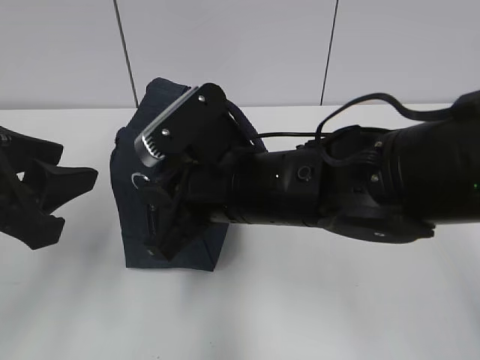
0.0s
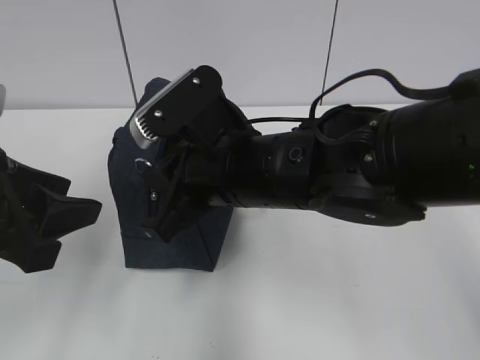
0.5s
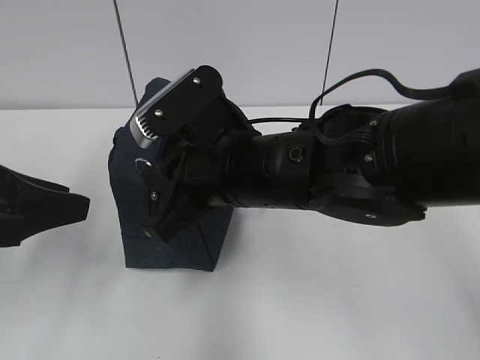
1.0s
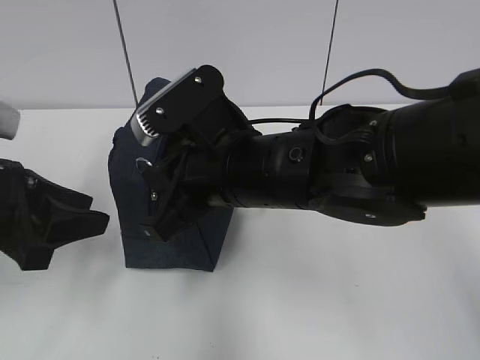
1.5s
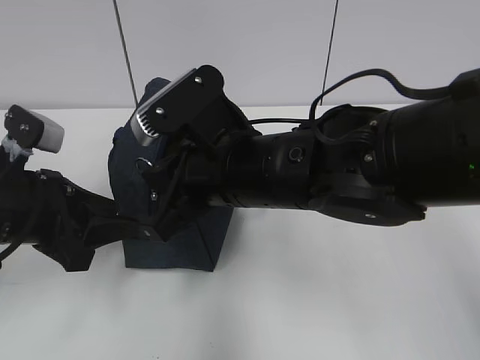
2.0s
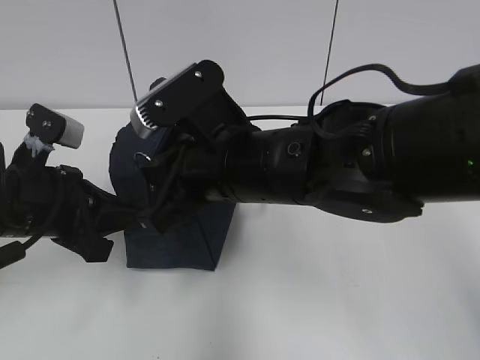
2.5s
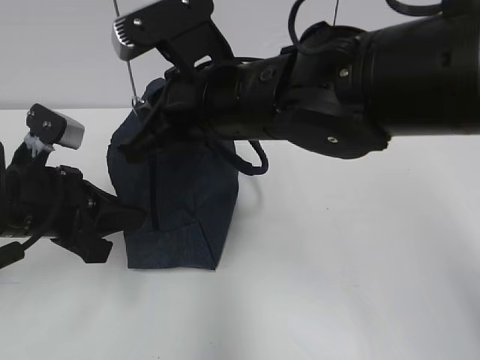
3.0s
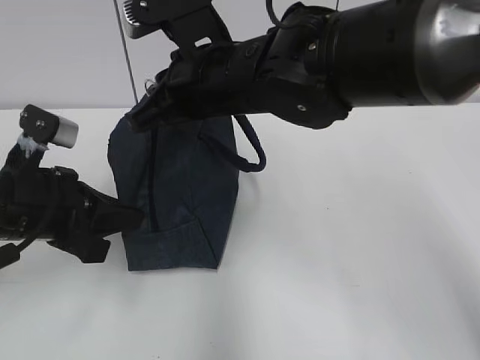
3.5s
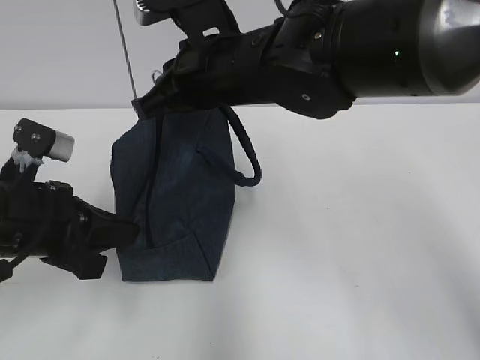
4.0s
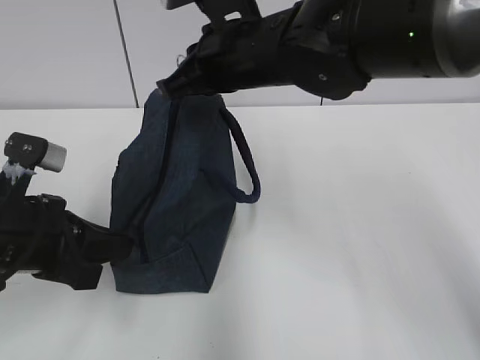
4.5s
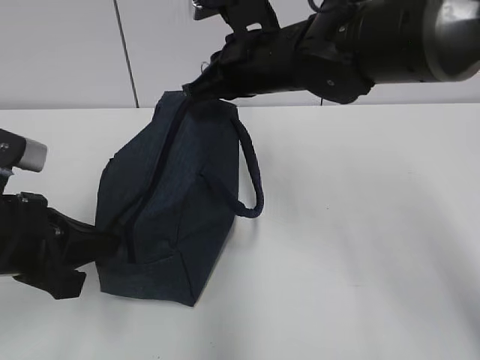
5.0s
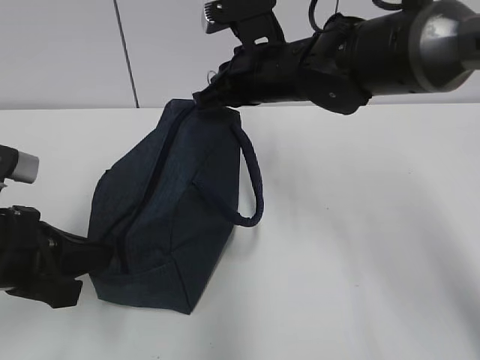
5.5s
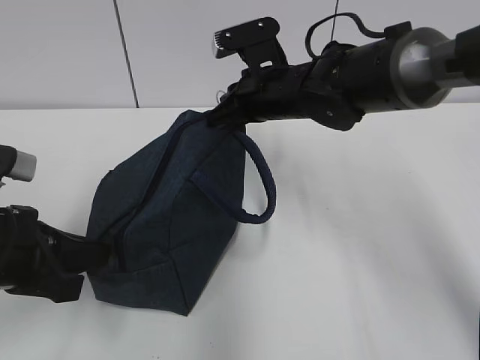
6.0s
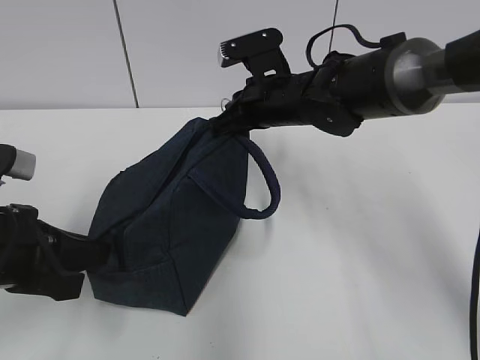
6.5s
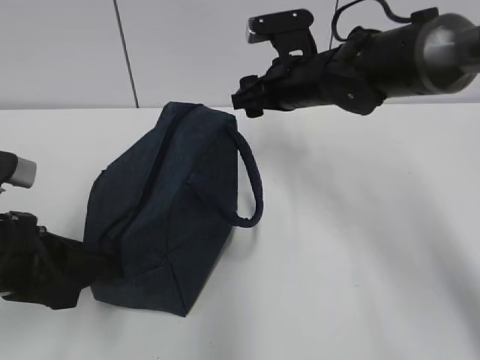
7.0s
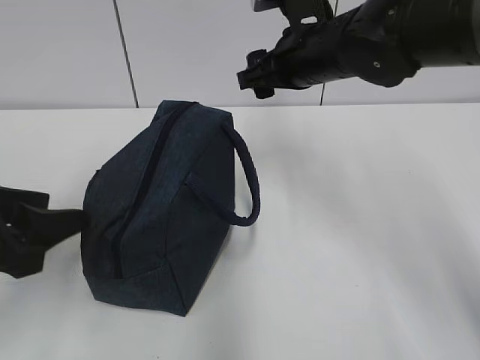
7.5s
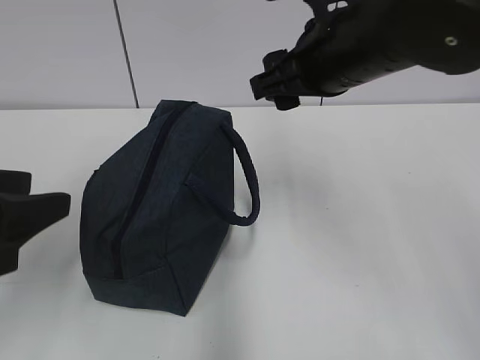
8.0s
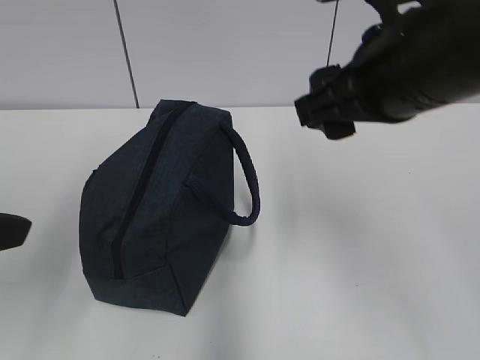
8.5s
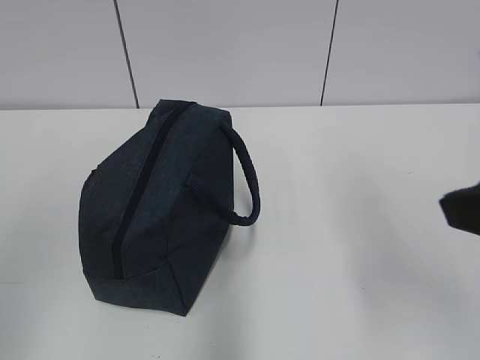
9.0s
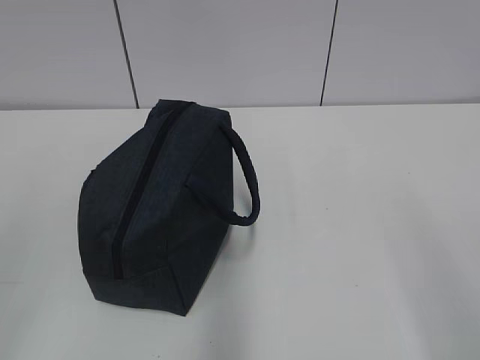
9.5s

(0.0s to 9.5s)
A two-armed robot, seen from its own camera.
Step, 0.0s - 2.0s: Grab the lunch bag with your left hand.
Step, 2.5s - 6.5s: Pull the zipper with your right hand.
0.0s - 2.0s: The left gripper goes about 10 cm downward and forward.
2.0s - 4.0s: The right gripper shifts about 10 cm forward and upward. The left gripper closes.
4.0s - 5.5s: The right gripper travels forward and to the right by about 10 cm.
5.5s - 7.5s: The right gripper opens its fingers. The left gripper opens up.
7.5s - 9.5s: The left gripper travels backward and upward by roughly 20 cm. Meanwhile the right gripper shifts some 40 cm backward and to the right.

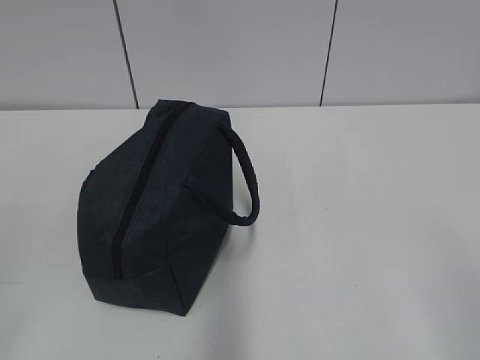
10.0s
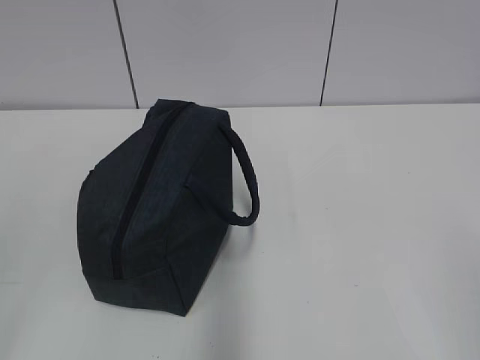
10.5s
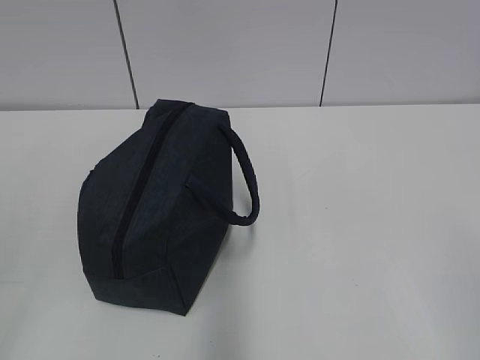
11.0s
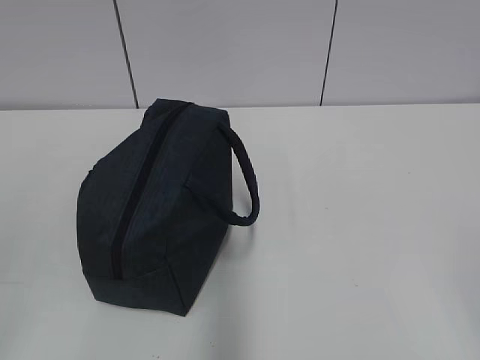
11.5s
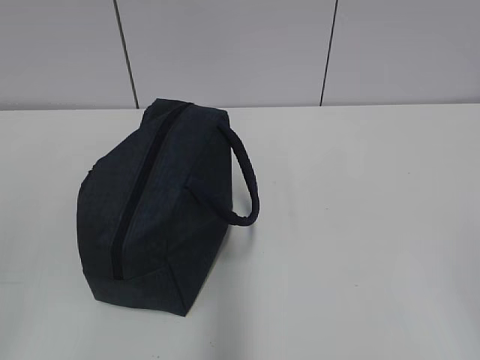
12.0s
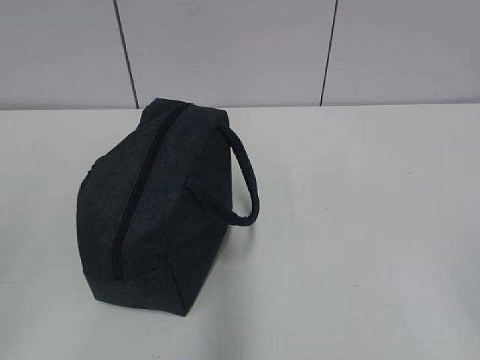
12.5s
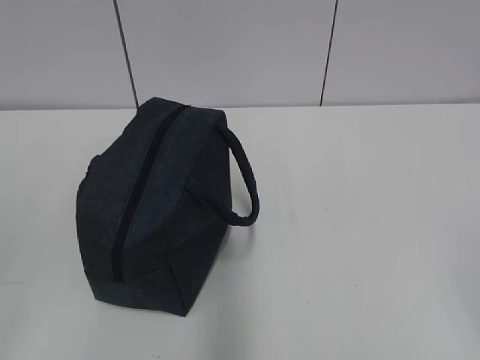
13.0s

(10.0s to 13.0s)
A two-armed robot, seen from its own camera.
11.5s - 13.0s: Both grippers stay about where they are.
